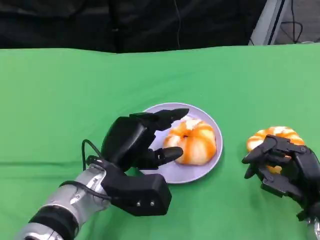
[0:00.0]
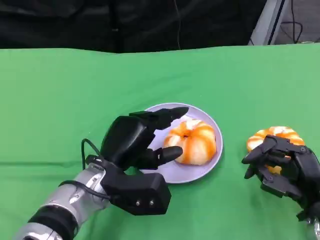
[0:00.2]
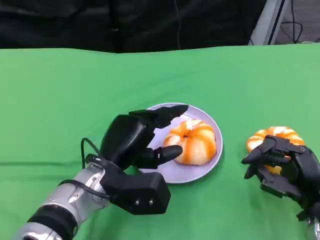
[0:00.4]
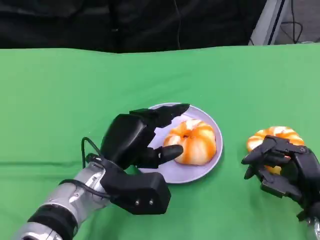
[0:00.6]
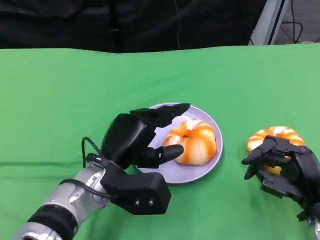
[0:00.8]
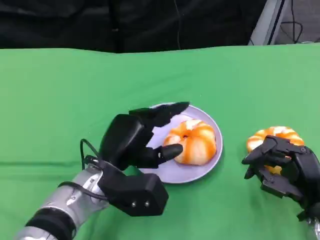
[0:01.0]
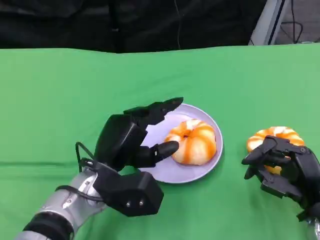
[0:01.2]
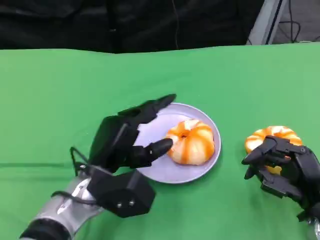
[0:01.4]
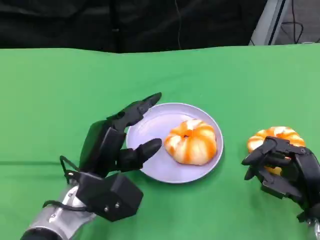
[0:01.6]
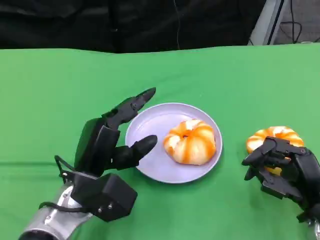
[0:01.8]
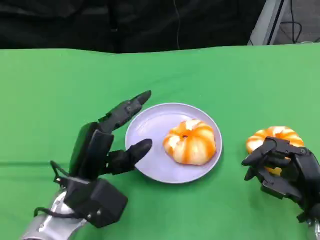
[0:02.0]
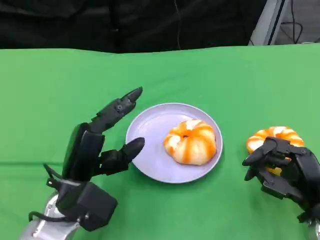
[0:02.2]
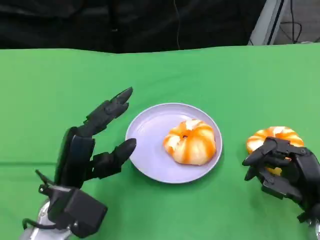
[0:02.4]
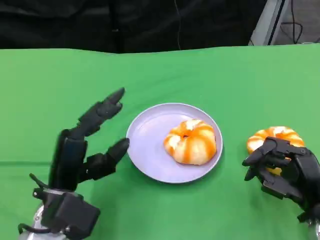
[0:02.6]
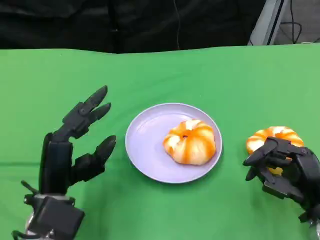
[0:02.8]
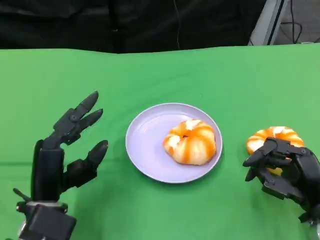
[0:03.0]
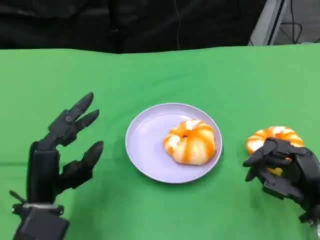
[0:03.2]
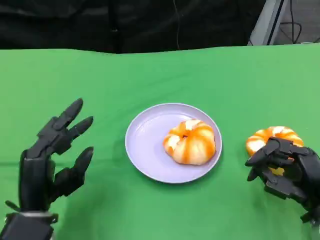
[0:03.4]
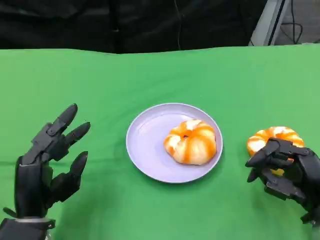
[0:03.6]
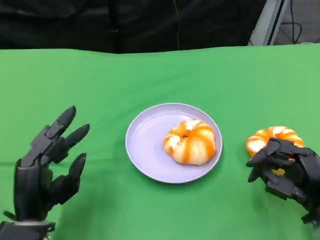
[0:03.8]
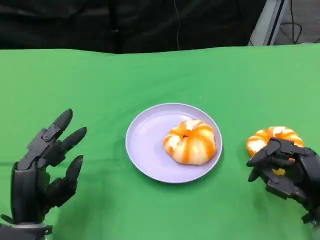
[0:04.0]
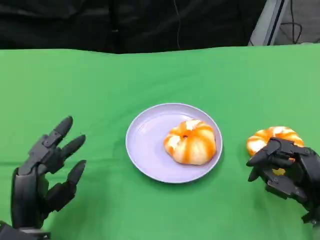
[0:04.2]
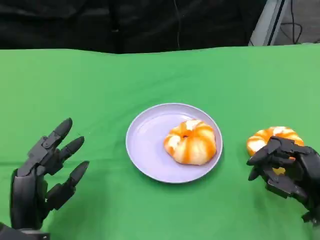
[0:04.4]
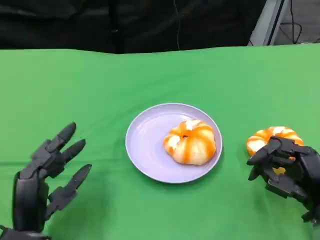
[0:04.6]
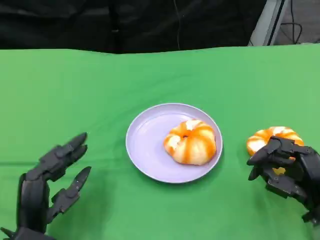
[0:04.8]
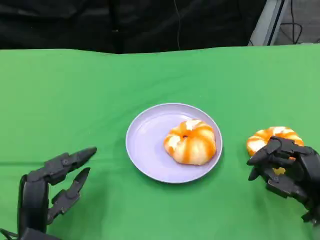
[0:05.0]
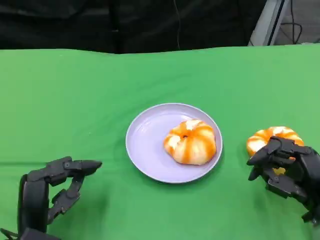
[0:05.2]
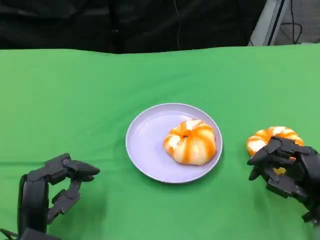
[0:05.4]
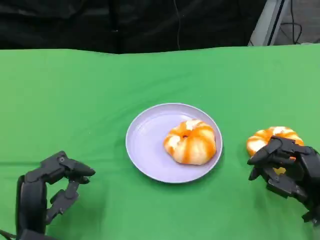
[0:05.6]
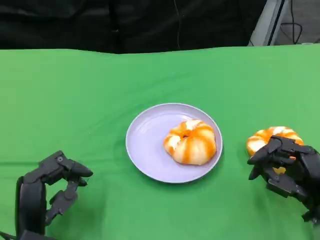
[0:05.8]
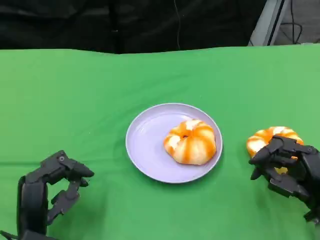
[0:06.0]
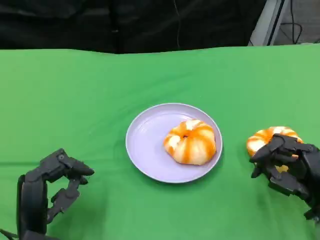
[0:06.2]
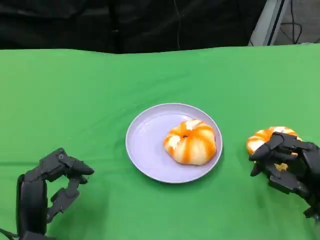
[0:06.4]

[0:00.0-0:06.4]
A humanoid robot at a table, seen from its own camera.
Task of the whole recording: Grasp the bread from the table and place it into the plate.
0:01.6 to 0:03.2: The left hand travels to the left by some 5 cm.
0:03.2 to 0:04.8: The hands make only small movements.
0:04.8 to 0:06.4: Both hands stay about where they are.

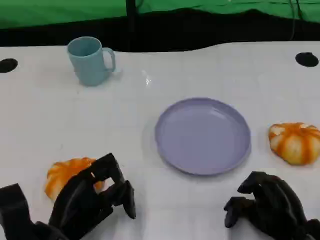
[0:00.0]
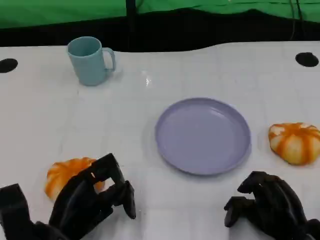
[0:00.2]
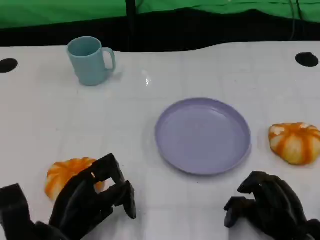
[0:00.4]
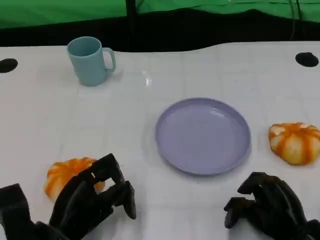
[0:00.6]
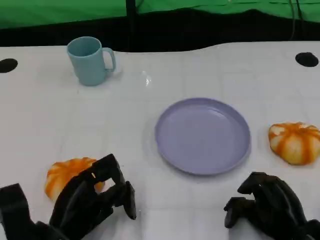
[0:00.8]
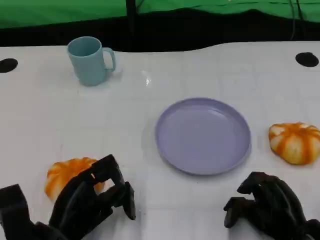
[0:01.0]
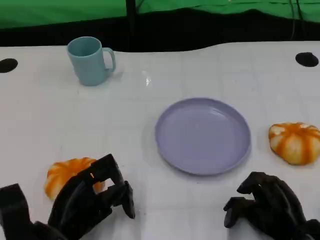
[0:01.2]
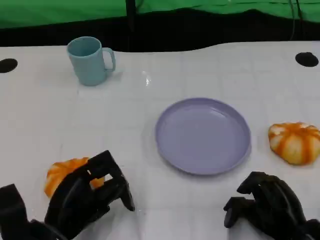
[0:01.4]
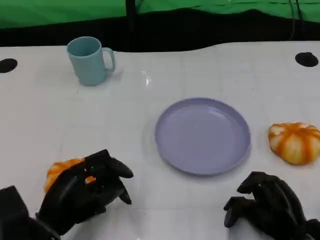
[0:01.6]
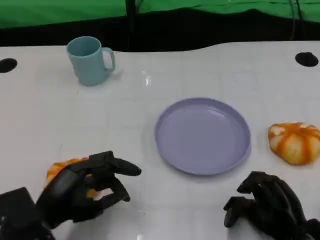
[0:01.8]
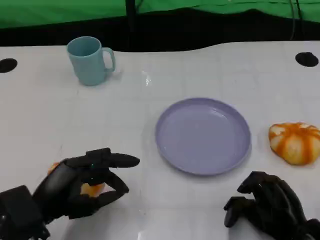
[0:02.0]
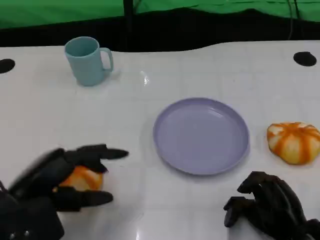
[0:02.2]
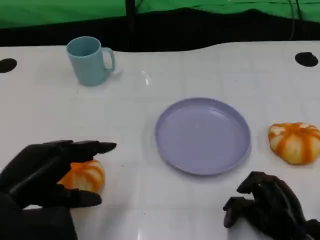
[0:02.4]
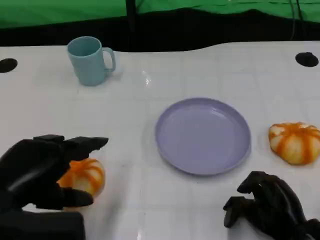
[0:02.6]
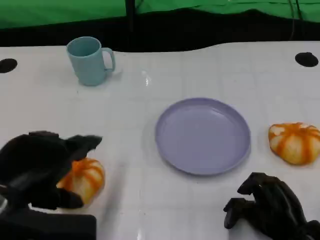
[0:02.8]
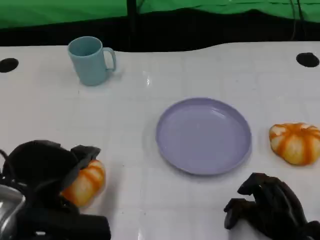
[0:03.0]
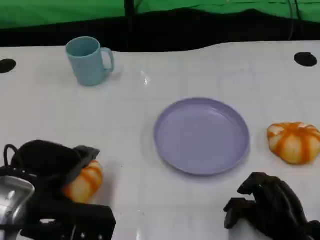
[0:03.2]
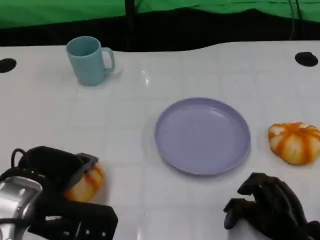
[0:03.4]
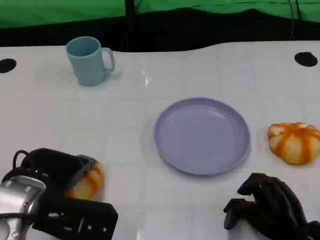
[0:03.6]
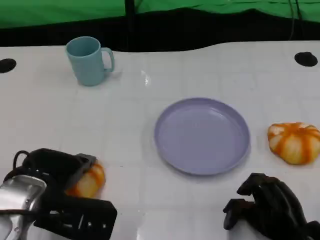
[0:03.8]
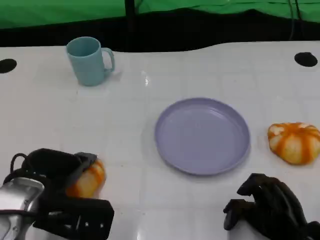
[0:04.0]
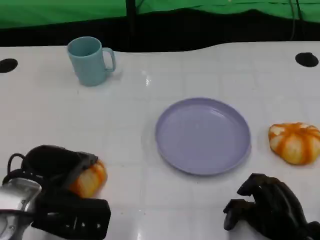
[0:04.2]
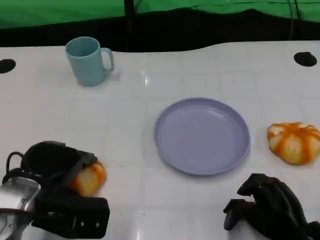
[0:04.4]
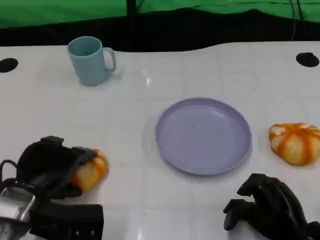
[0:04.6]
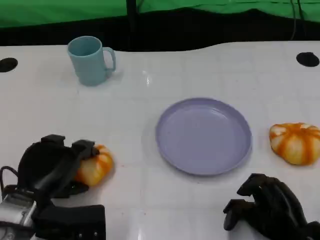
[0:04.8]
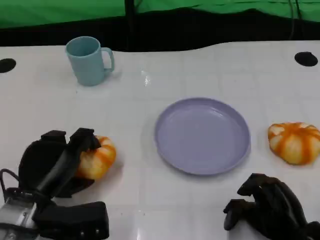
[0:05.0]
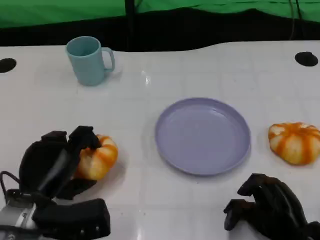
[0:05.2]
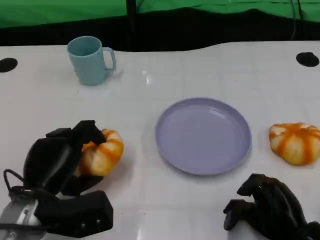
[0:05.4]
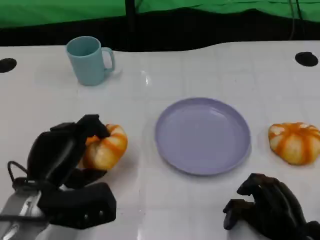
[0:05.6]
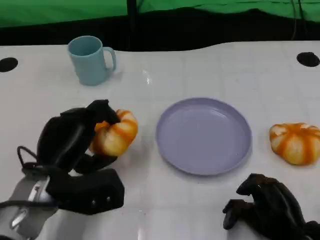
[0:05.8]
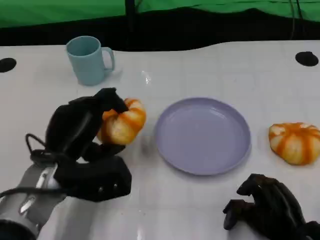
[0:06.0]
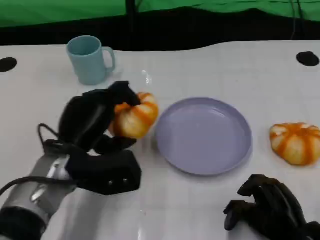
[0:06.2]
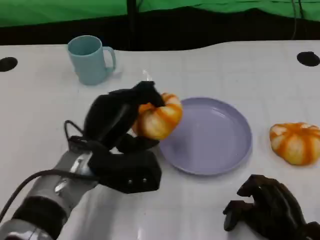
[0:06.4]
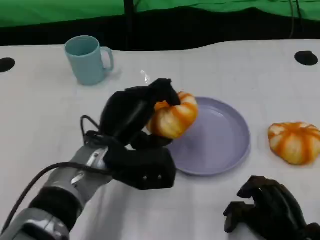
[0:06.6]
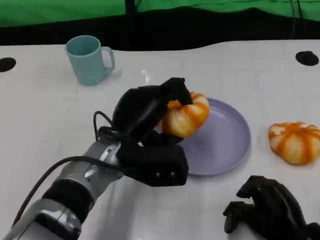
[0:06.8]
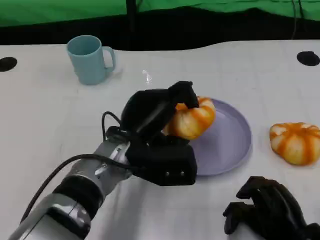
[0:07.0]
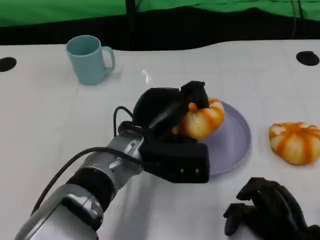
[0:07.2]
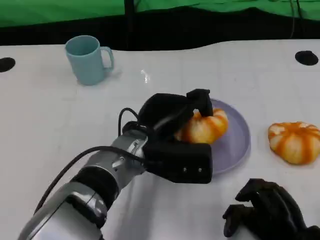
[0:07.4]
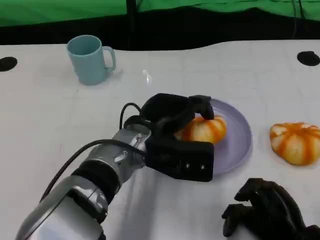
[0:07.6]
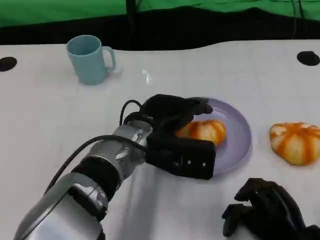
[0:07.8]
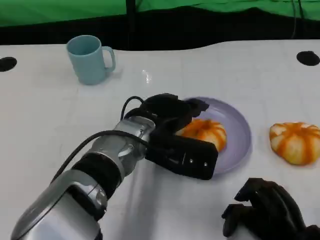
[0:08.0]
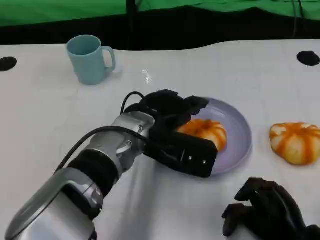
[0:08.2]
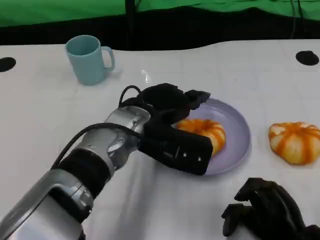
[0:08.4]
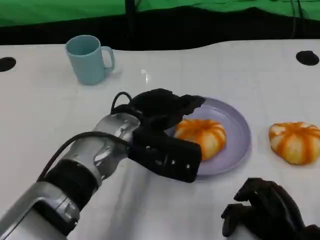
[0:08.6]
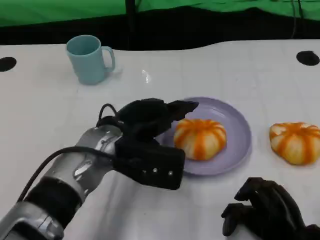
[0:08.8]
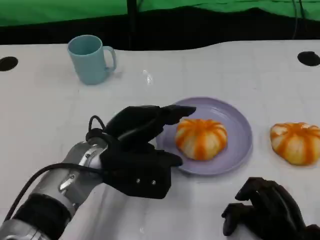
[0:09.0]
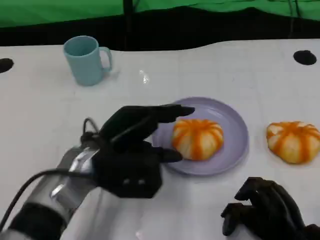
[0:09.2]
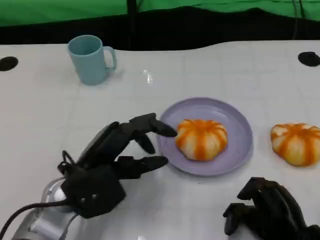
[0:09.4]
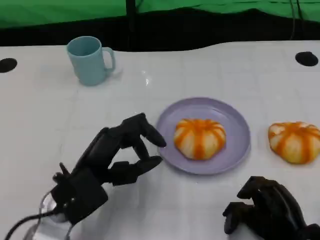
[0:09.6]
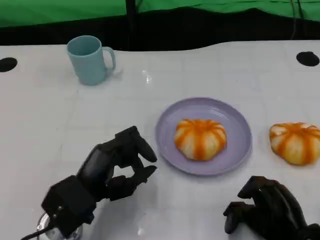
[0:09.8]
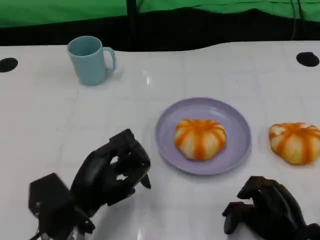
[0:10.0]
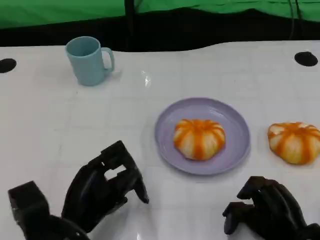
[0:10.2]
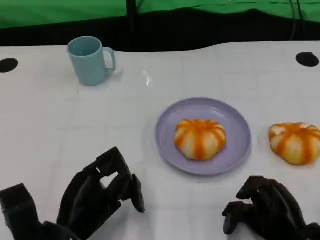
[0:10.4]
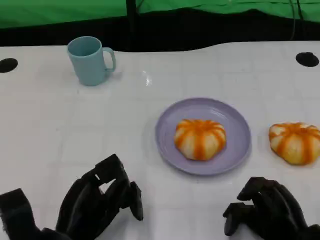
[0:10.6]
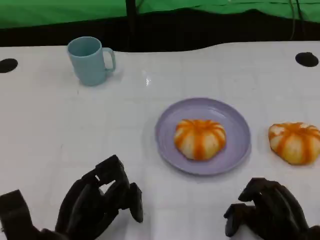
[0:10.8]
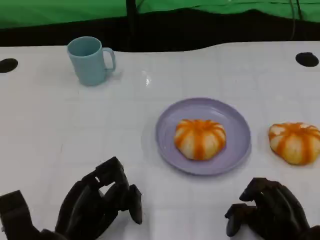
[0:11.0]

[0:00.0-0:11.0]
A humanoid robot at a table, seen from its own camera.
Task of the whole recording: Grasp the bread from the table and place it into the plate.
0:00.0 to 0:01.6: The hands stay close to where they were, moving slightly.
0:01.6 to 0:03.2: The left hand shifts approximately 10 cm upward.
0:03.2 to 0:04.8: The left hand moves downward, about 10 cm.
0:04.8 to 0:06.2: The left hand travels to the right and forward by approximately 10 cm.
0:06.2 to 0:07.8: The left hand travels to the right by approximately 10 cm.
0:07.8 to 0:09.4: The left hand heads to the left and backward, covering about 10 cm.
0:09.4 to 0:11.0: The left hand is displaced backward by approximately 5 cm.

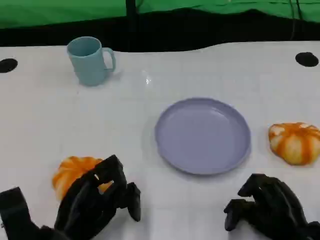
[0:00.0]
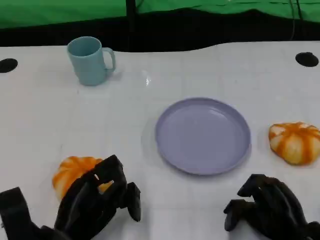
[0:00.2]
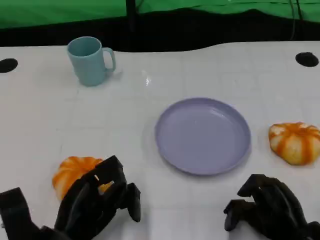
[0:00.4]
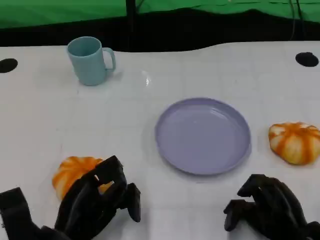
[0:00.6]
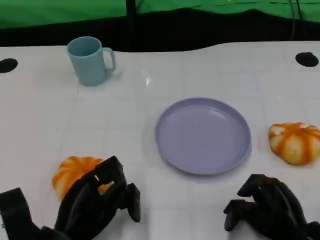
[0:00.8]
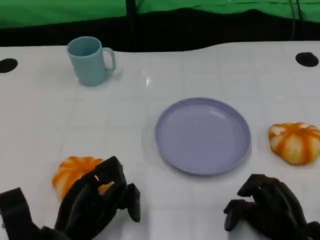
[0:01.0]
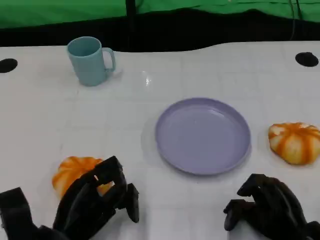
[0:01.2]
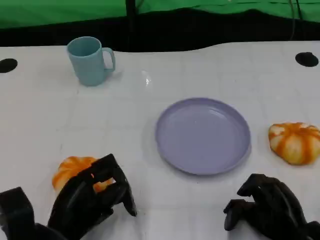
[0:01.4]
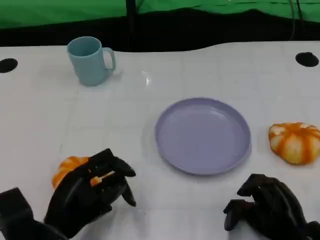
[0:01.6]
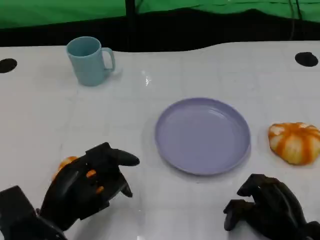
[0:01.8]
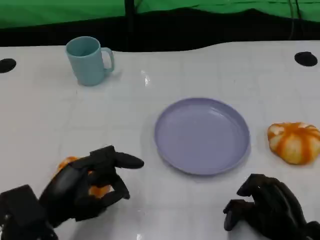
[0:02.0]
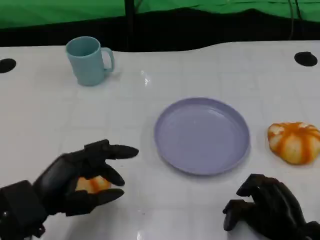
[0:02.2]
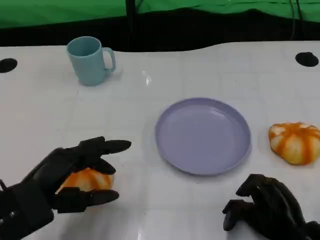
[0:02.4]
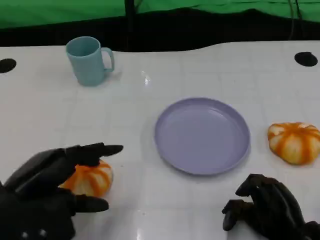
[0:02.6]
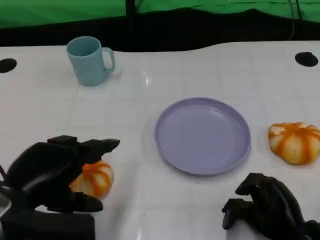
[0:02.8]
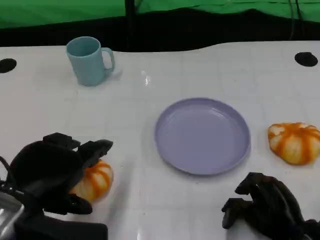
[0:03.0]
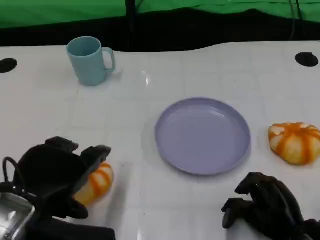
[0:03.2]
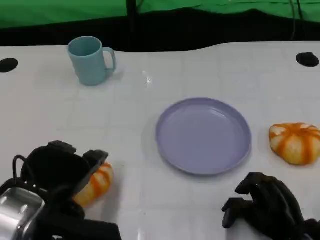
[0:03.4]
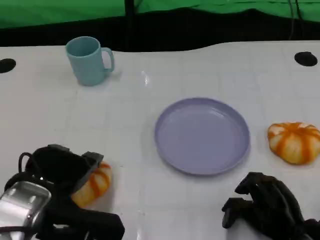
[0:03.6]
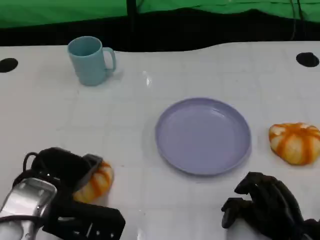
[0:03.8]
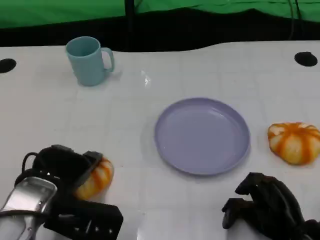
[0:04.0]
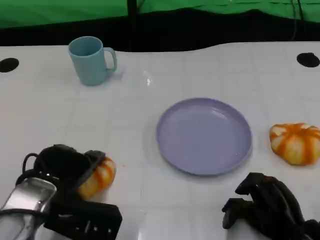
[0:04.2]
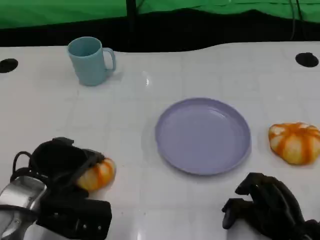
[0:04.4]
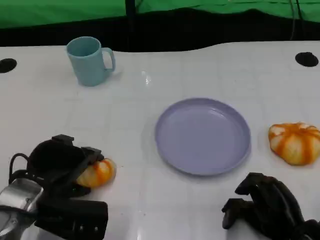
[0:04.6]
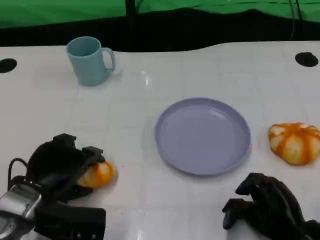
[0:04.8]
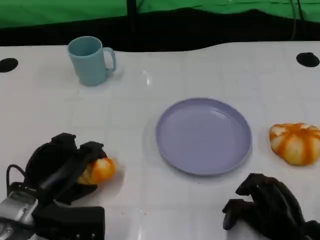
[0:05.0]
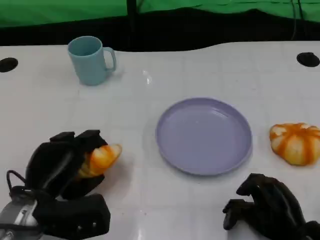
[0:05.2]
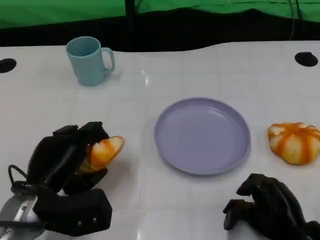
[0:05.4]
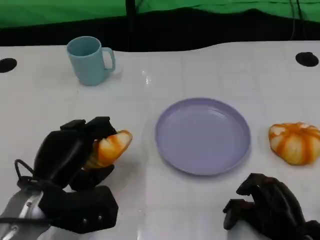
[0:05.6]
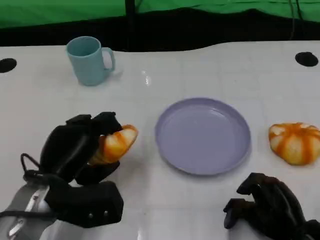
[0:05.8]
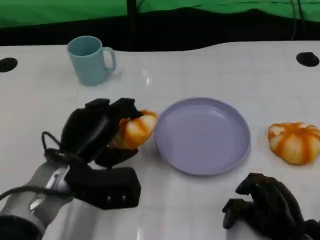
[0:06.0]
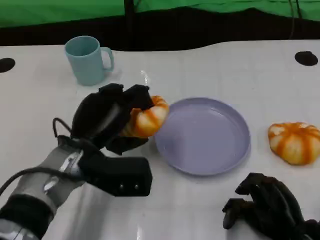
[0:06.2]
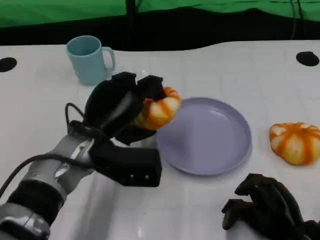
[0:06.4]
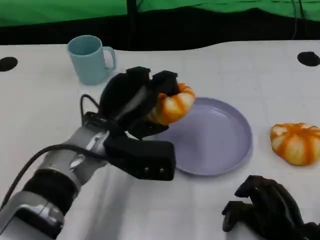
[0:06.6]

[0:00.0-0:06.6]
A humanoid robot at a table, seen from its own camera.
Task of the whole recording: Grasp the bread from the table and place it into the plate.
0:00.0 to 0:01.6: The hands make only small movements.
0:01.6 to 0:03.2: The left hand goes roughly 10 cm upward.
0:03.2 to 0:05.0: The left hand is displaced downward and forward by roughly 10 cm.
0:05.0 to 0:06.6: The left hand travels to the right, forward and upward by roughly 15 cm.
